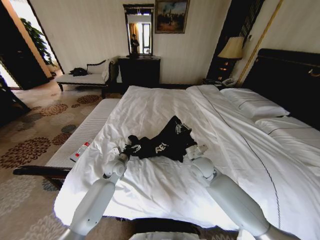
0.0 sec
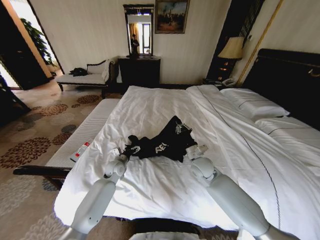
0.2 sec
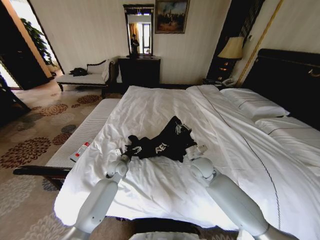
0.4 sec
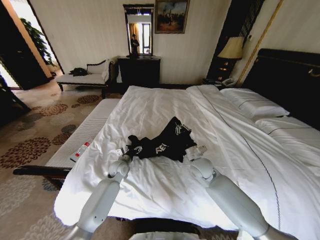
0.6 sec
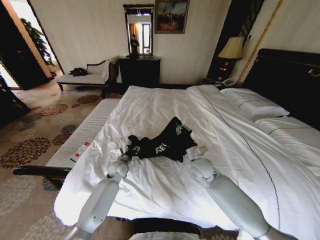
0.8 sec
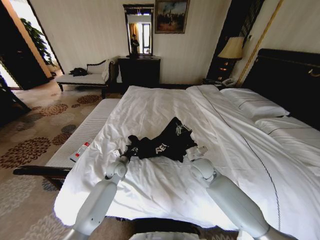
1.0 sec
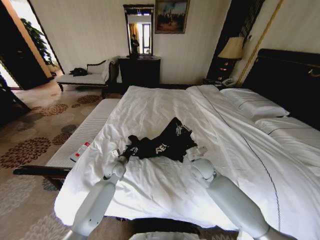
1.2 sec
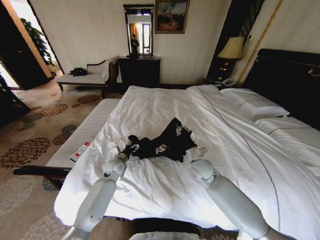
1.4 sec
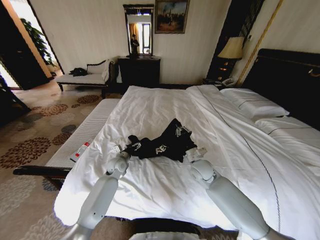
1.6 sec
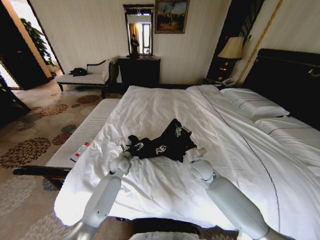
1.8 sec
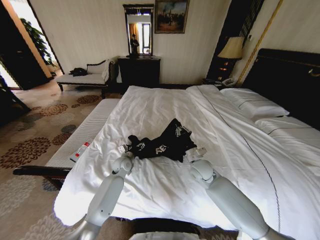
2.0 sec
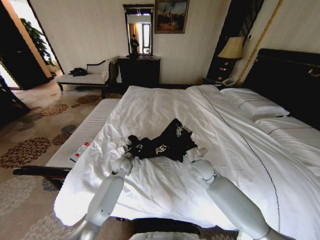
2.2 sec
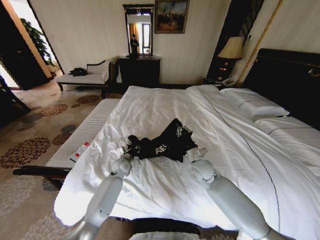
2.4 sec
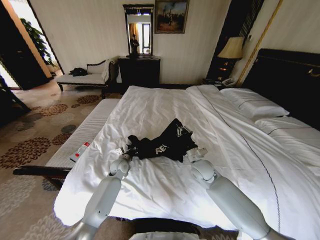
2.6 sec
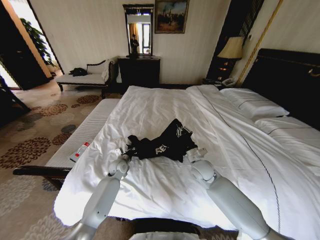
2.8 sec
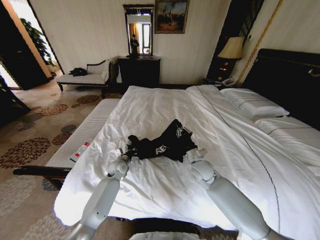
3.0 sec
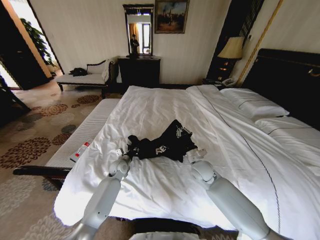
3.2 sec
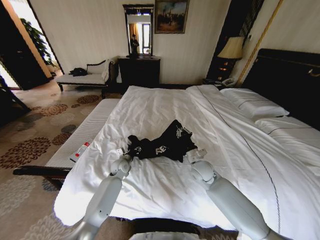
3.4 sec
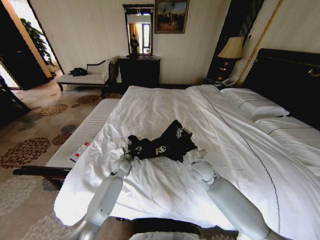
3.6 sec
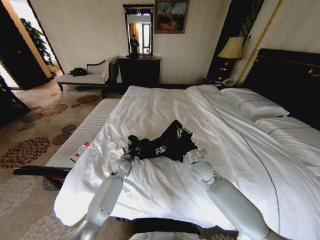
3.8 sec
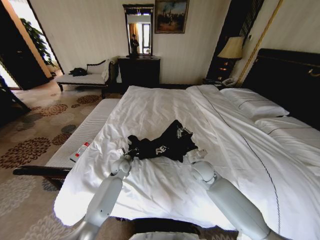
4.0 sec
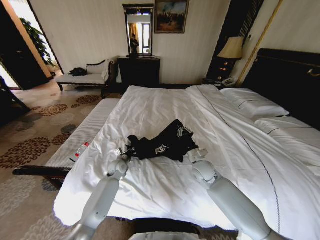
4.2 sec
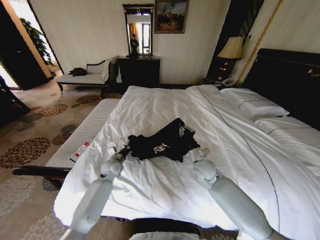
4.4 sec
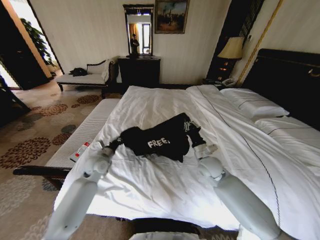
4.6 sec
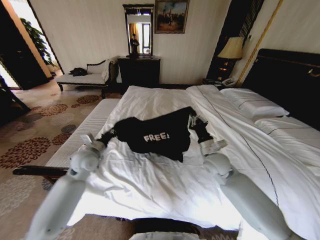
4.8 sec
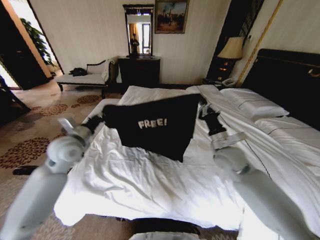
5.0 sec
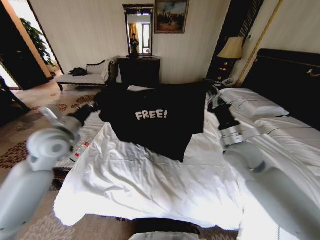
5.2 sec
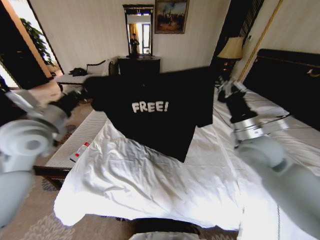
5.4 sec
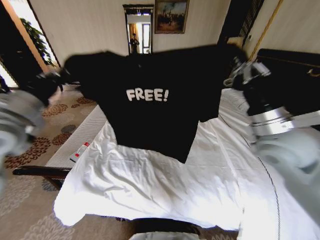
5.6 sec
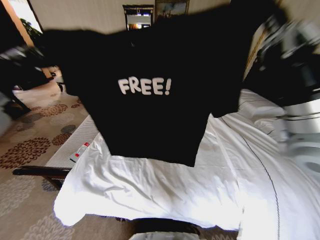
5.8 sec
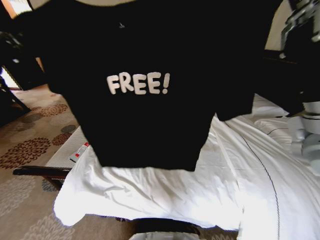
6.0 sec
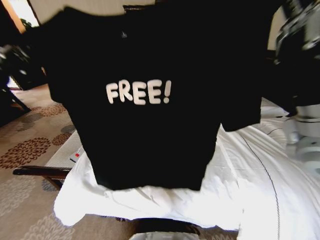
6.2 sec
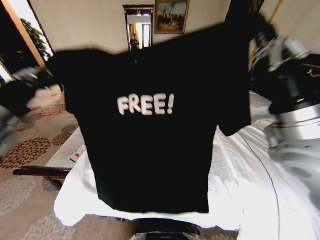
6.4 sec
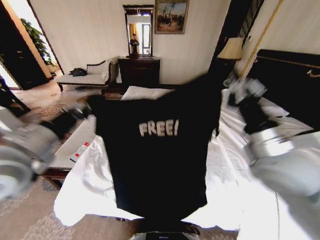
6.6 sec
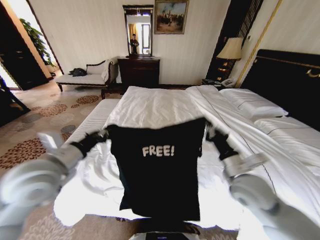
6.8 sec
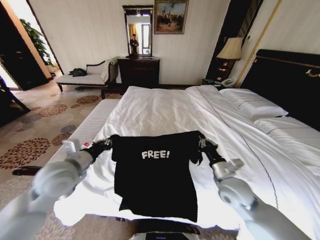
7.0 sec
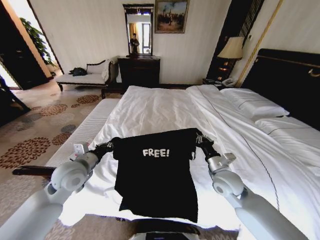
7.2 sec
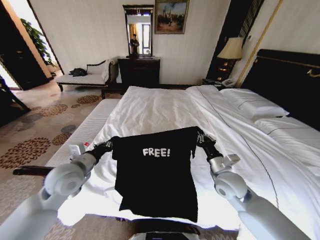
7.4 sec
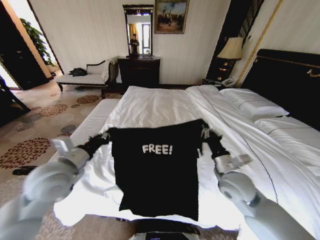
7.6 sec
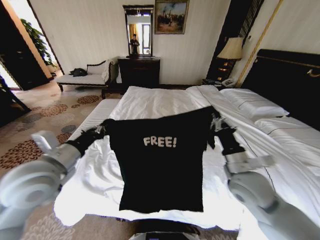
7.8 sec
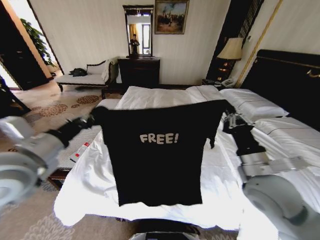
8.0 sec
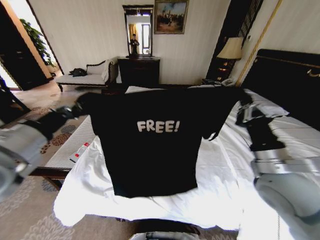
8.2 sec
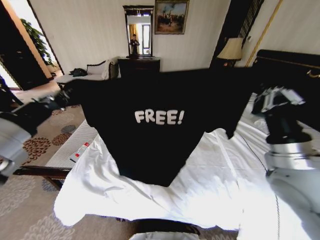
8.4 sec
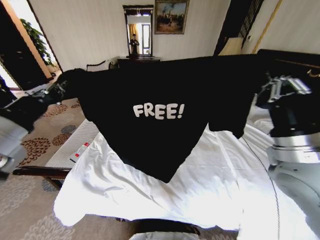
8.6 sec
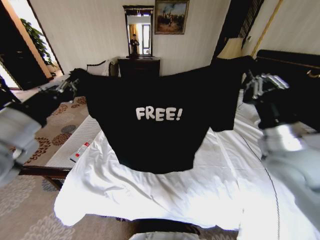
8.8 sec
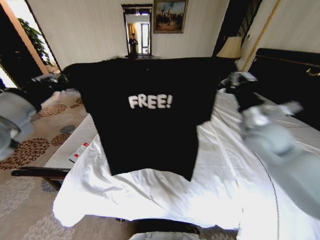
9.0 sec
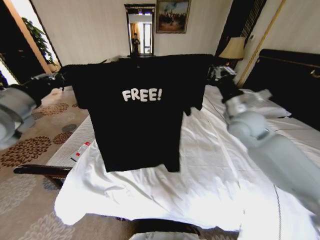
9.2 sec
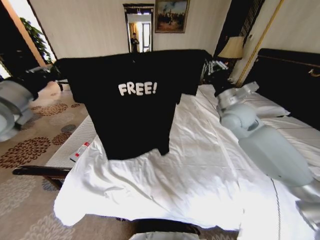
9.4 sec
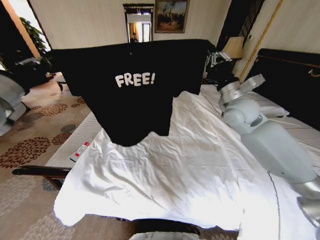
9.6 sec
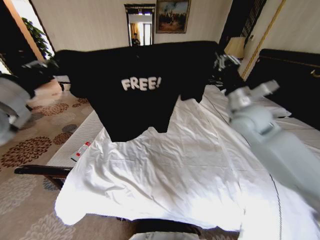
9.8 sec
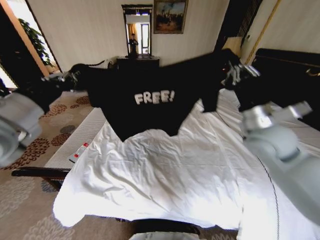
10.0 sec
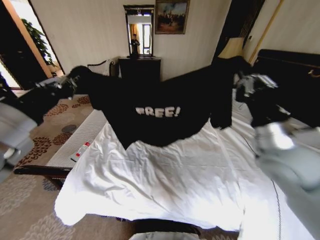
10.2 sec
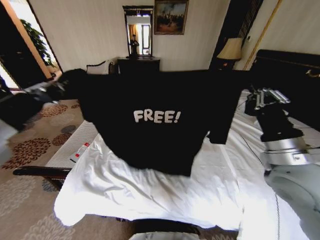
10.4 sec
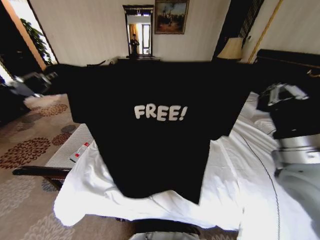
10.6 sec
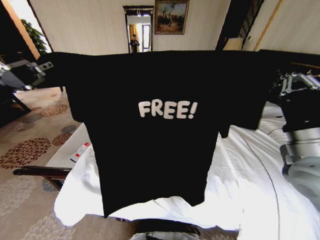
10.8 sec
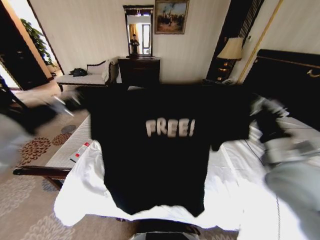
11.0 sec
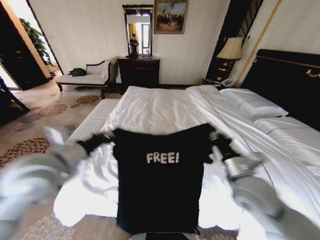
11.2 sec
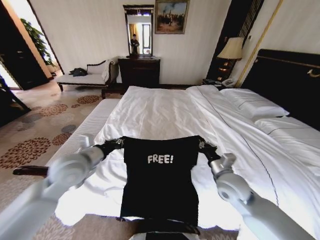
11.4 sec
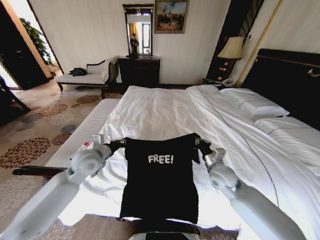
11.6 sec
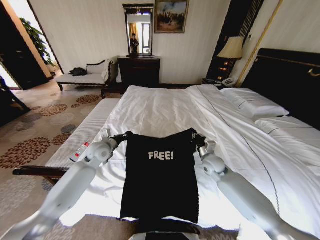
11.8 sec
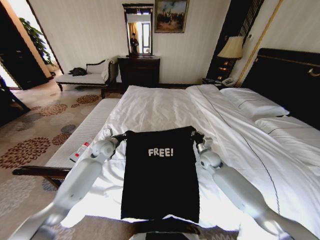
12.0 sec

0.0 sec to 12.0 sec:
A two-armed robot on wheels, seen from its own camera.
Task of the whole recording: Fold the clothes on the bed.
0.0 sec to 1.6 sec: The left gripper closes and opens again.
1.6 sec to 3.0 sec: The left gripper closes its fingers.
3.0 sec to 4.4 sec: The left gripper changes place by roughly 5 cm, and opens and closes again.
4.4 sec to 6.0 sec: Both grippers move upward and backward, about 40 cm.
6.0 sec to 7.6 sec: The right gripper shifts about 25 cm downward. The left gripper goes some 20 cm downward and to the right.
7.6 sec to 9.0 sec: The right gripper shifts some 20 cm upward, to the right and forward, while the left gripper heads upward and to the left, covering approximately 15 cm.
9.0 sec to 10.4 sec: The two grippers go about 10 cm backward.
10.4 sec to 12.0 sec: Both grippers travel together downward and forward, some 40 cm.

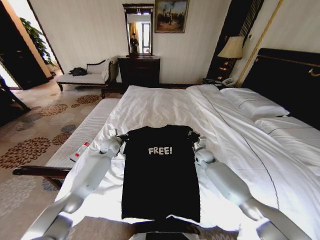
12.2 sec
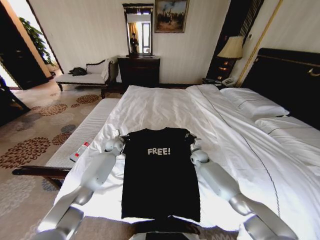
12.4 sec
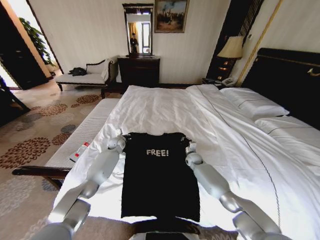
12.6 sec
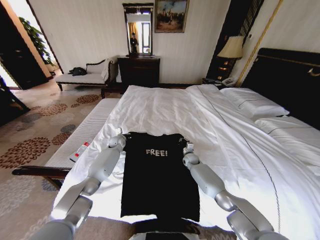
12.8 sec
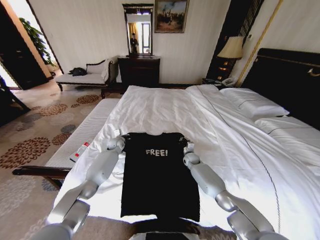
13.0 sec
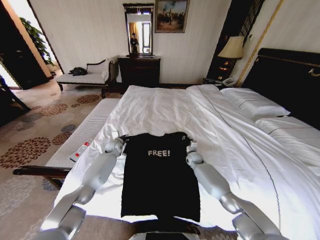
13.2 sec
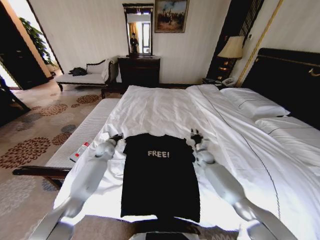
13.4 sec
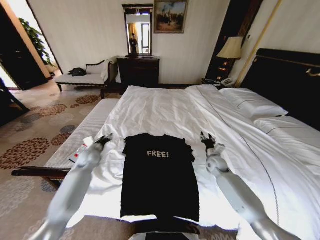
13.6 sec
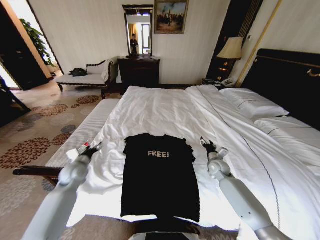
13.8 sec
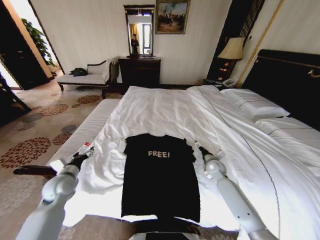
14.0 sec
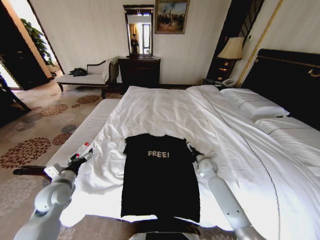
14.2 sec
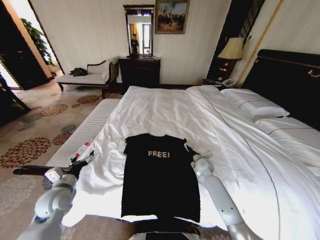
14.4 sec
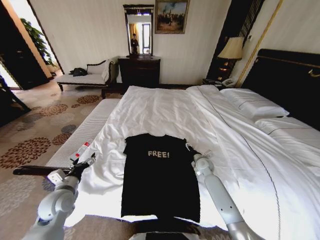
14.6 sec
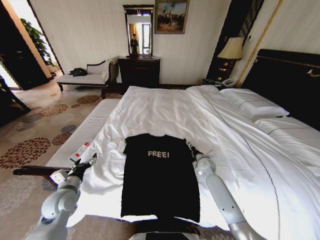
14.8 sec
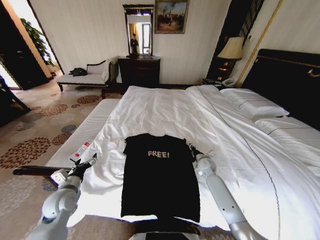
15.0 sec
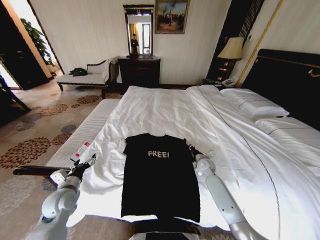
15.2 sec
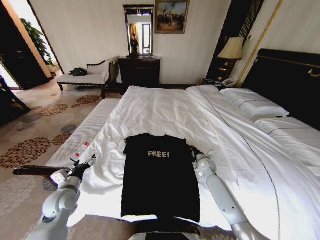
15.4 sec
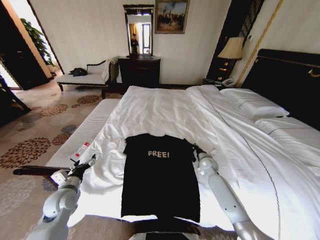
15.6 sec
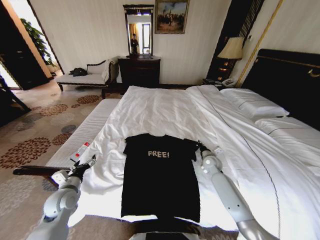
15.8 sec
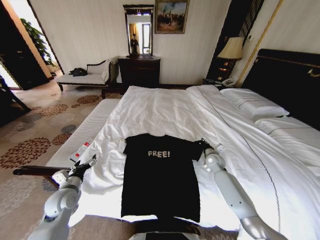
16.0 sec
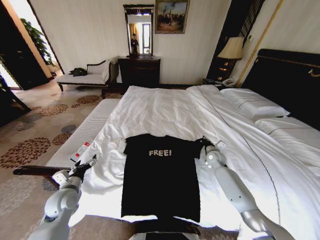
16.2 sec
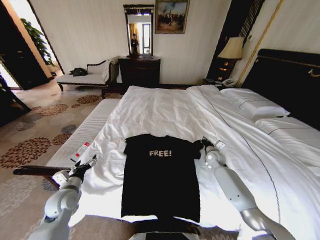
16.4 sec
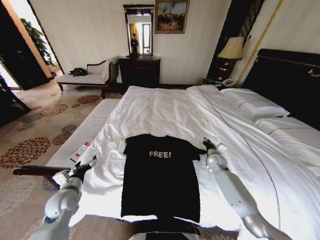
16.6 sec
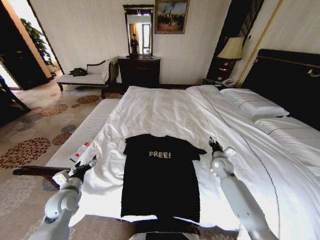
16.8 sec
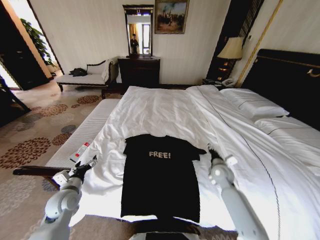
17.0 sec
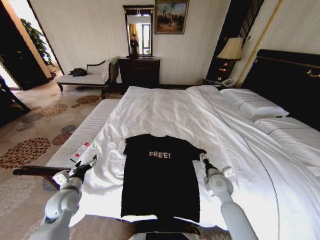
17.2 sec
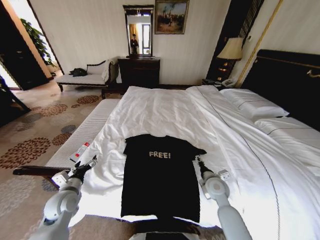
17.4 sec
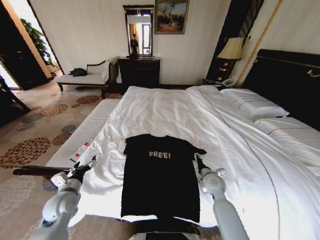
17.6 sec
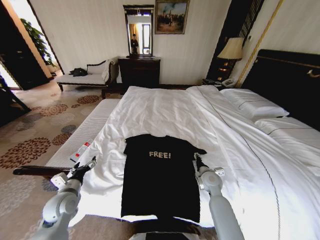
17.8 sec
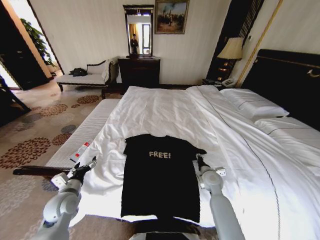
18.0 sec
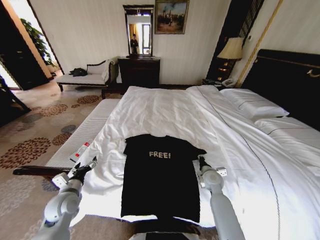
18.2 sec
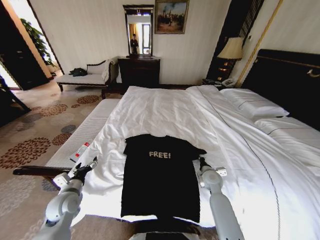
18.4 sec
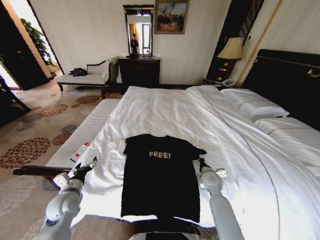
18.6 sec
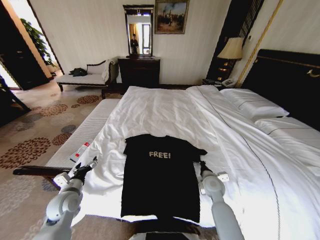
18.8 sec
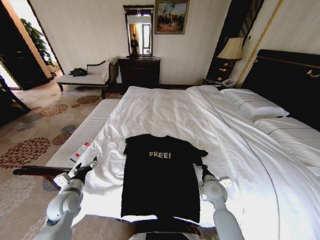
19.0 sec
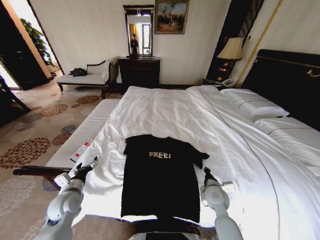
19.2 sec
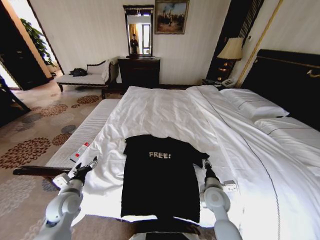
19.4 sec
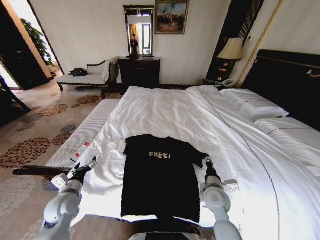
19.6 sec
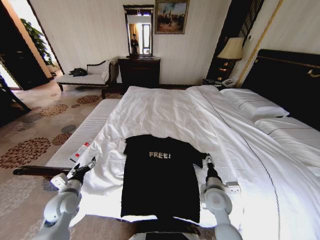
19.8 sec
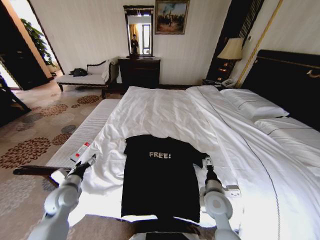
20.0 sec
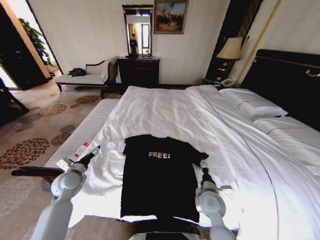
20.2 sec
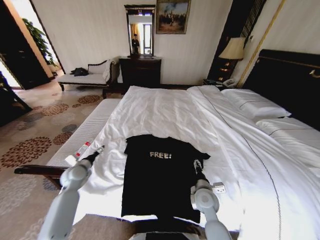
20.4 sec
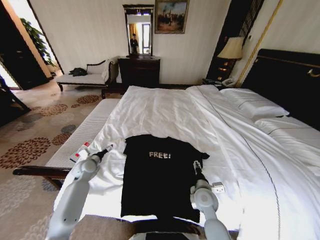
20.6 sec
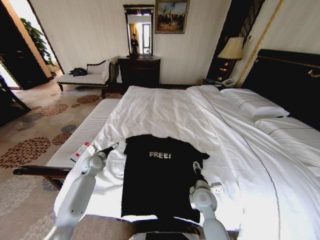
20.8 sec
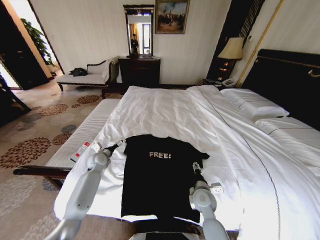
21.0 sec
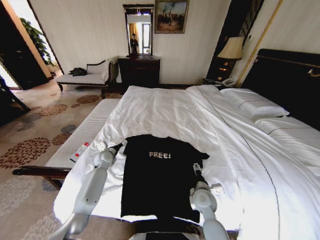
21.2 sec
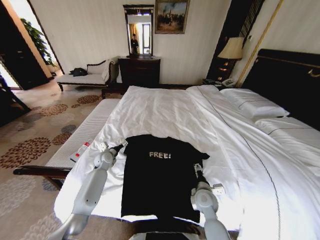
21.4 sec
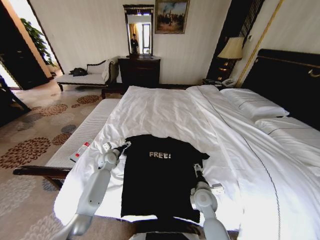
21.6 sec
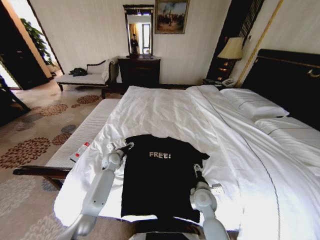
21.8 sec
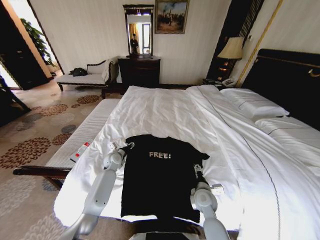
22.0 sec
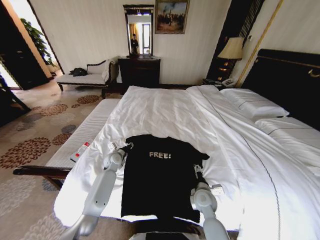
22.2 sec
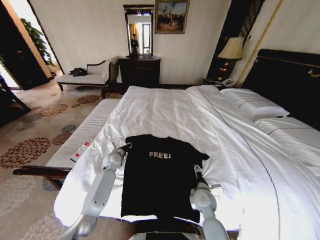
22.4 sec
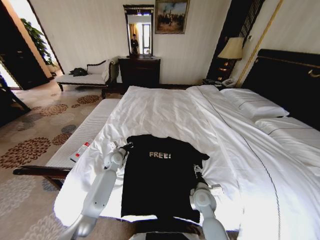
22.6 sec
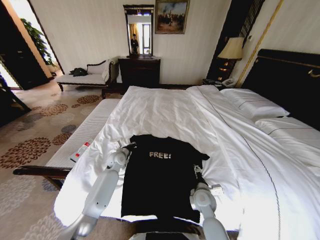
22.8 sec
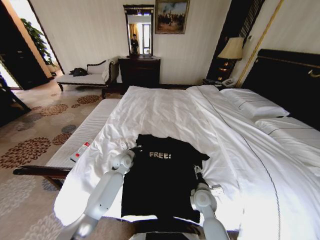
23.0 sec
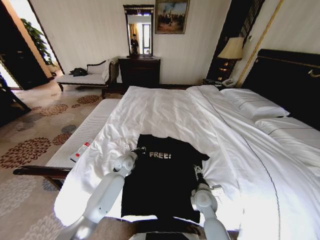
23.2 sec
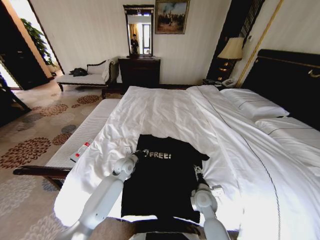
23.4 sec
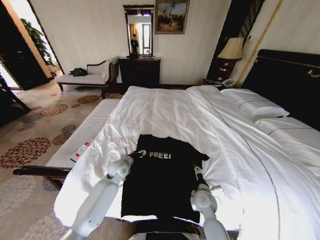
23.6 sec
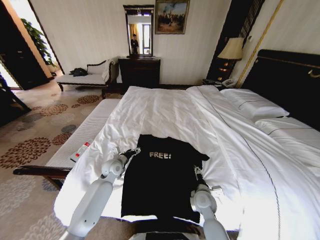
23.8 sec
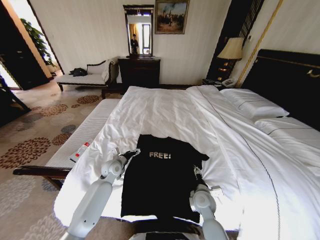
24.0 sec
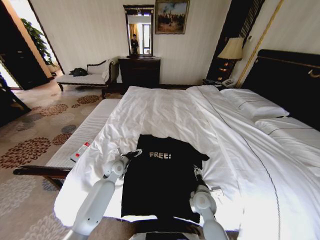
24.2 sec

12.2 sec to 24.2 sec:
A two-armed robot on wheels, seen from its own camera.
Task of the whole recording: Fold the clothes on the bed.
12.2 sec to 13.8 sec: The right gripper heads backward and to the right, covering some 10 cm, and opens. Meanwhile the left gripper shifts about 20 cm backward and to the left, and opens up.
13.8 sec to 15.2 sec: The left gripper shifts some 10 cm backward, while the right gripper heads to the left, covering some 5 cm, and closes up.
15.2 sec to 16.6 sec: The right gripper shifts about 5 cm to the right.
16.6 sec to 18.2 sec: The right gripper goes approximately 15 cm backward and to the left, and opens and closes again.
18.2 sec to 19.8 sec: The right gripper travels backward by about 10 cm, and closes and opens again.
19.8 sec to 21.2 sec: The right gripper moves downward, approximately 5 cm, while the left gripper goes about 25 cm forward.
21.2 sec to 22.6 sec: The left gripper shifts approximately 5 cm to the right, and closes up.
22.6 sec to 24.2 sec: The left gripper is displaced backward by about 5 cm, and opens.
